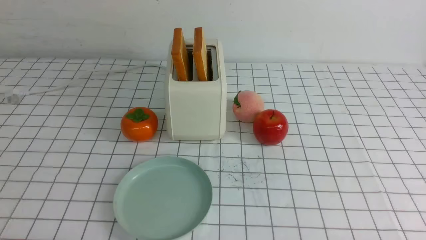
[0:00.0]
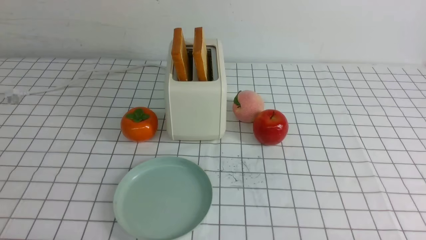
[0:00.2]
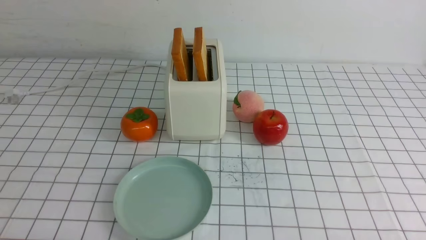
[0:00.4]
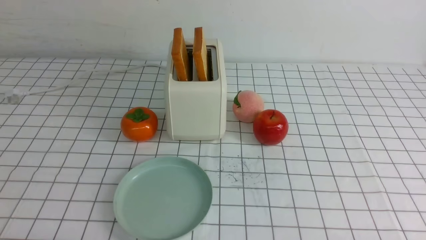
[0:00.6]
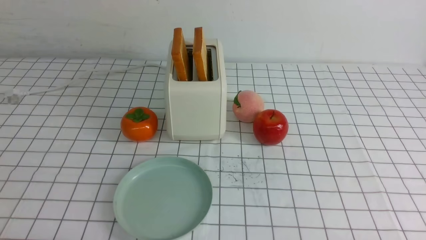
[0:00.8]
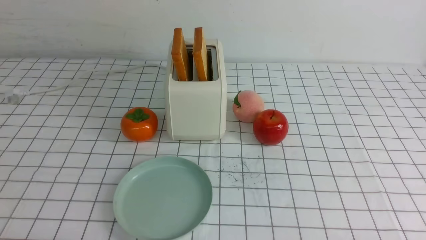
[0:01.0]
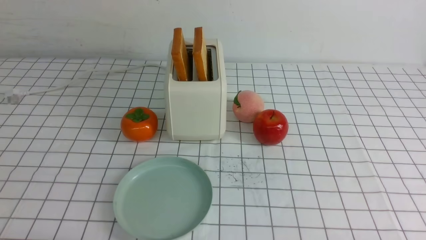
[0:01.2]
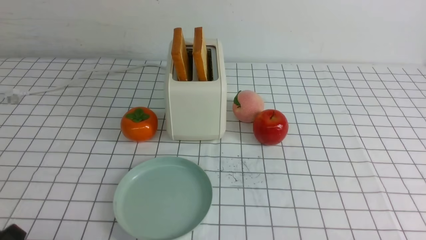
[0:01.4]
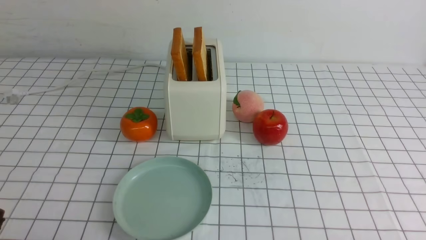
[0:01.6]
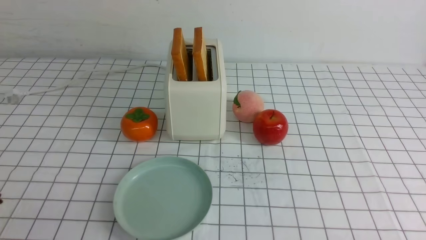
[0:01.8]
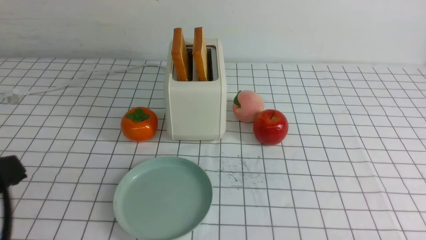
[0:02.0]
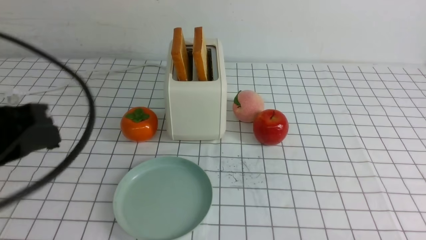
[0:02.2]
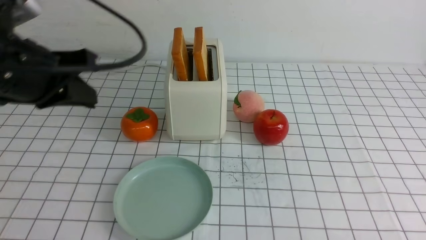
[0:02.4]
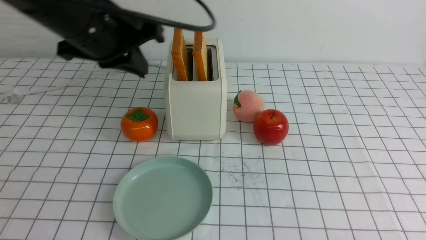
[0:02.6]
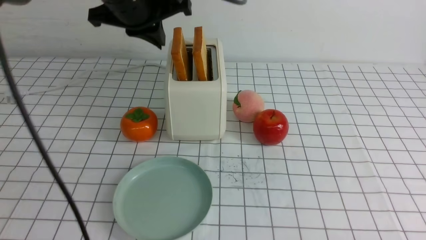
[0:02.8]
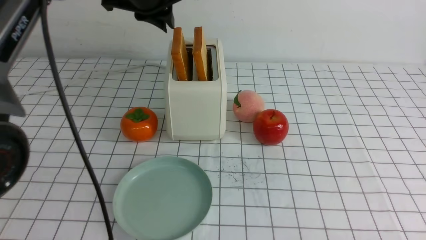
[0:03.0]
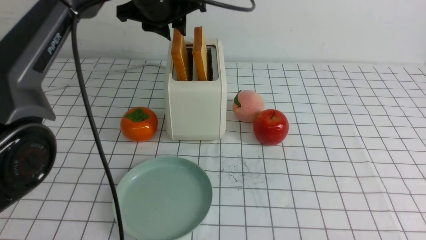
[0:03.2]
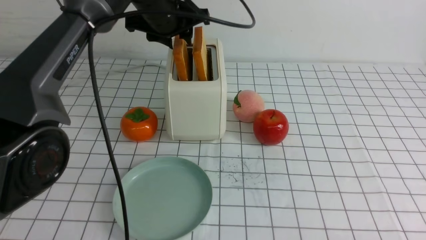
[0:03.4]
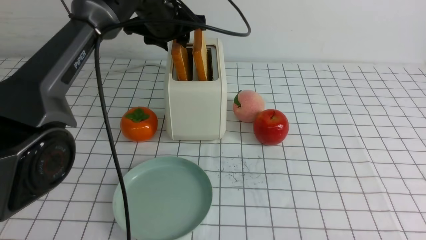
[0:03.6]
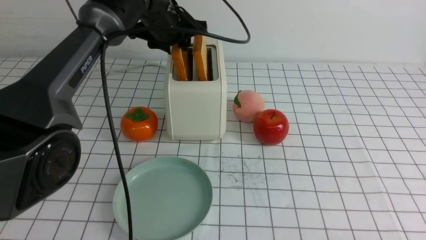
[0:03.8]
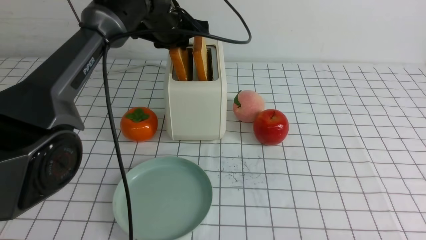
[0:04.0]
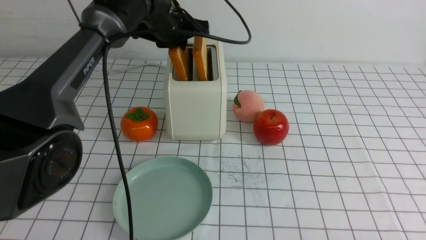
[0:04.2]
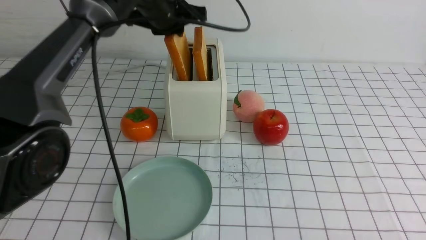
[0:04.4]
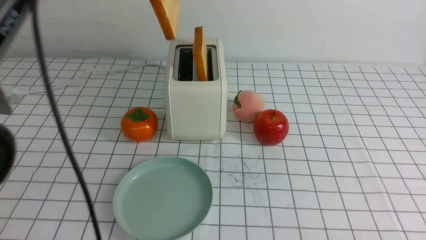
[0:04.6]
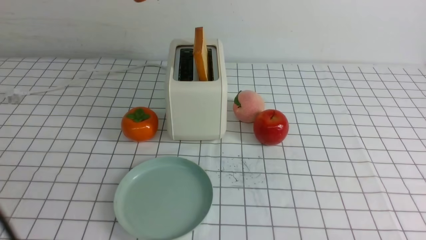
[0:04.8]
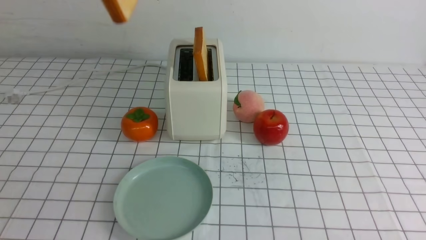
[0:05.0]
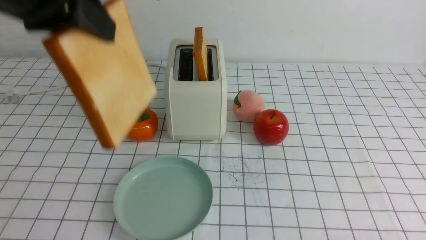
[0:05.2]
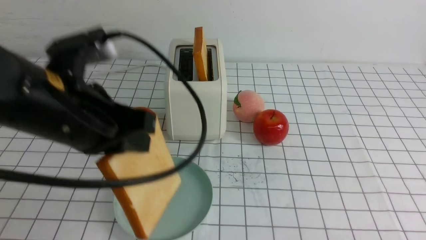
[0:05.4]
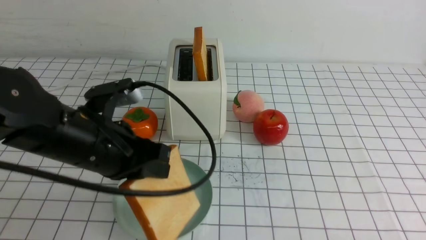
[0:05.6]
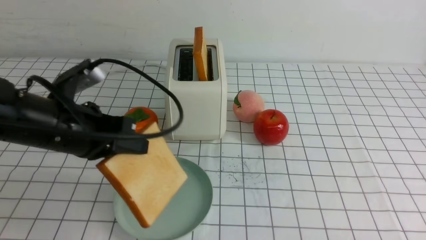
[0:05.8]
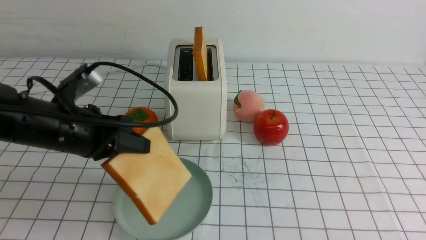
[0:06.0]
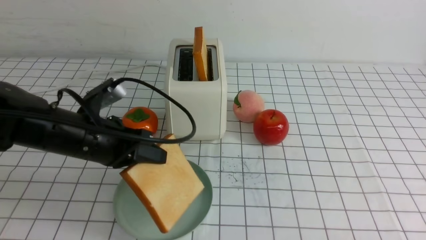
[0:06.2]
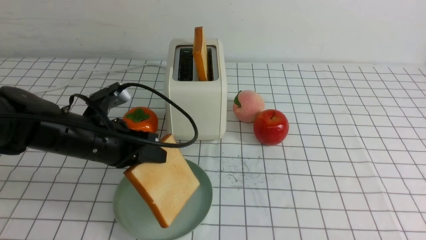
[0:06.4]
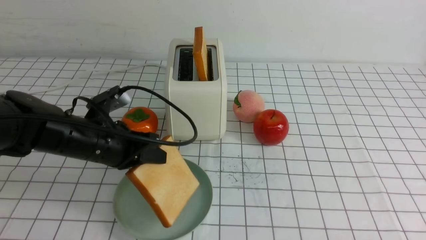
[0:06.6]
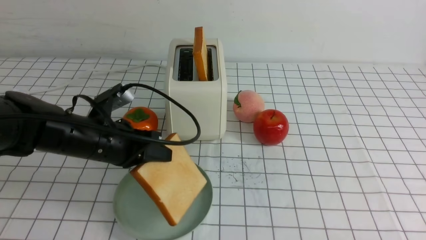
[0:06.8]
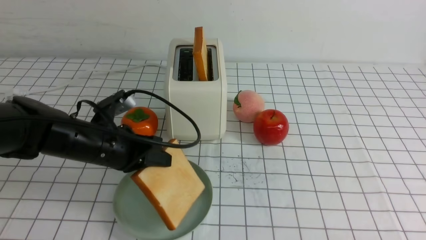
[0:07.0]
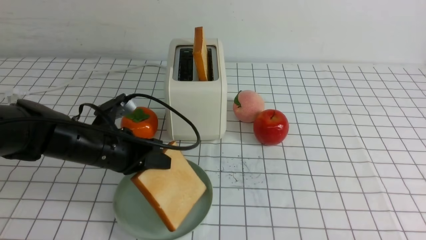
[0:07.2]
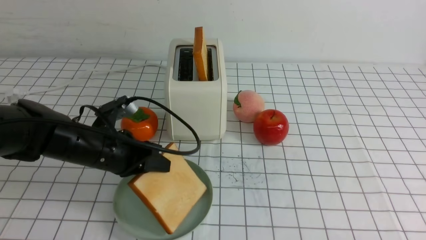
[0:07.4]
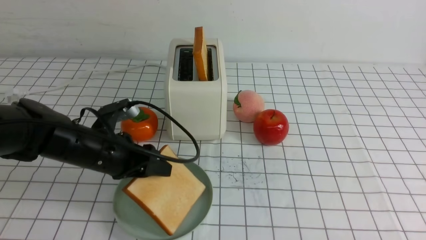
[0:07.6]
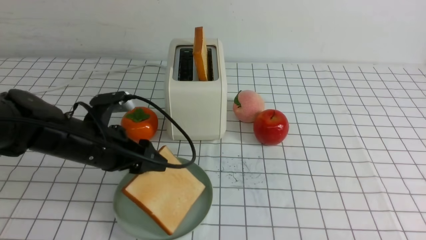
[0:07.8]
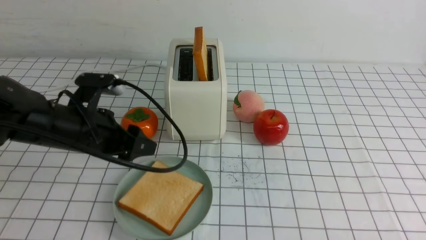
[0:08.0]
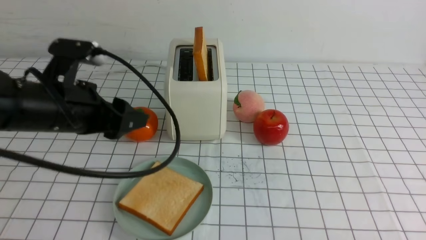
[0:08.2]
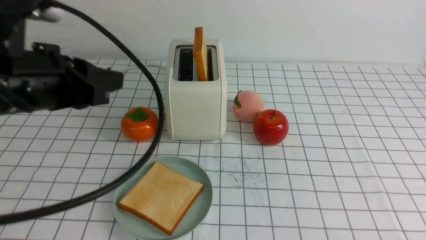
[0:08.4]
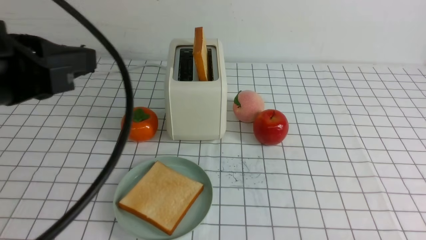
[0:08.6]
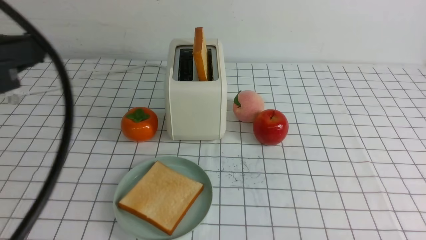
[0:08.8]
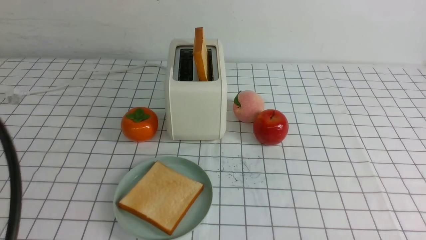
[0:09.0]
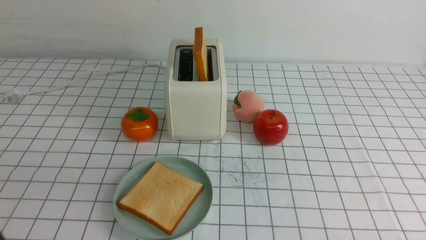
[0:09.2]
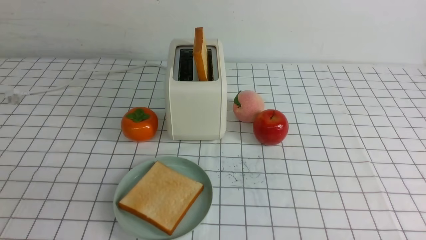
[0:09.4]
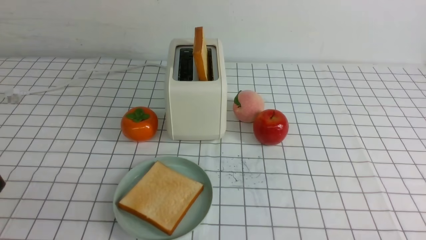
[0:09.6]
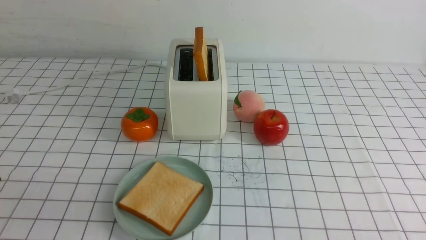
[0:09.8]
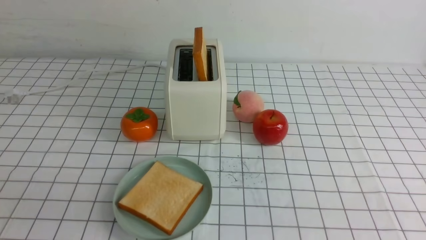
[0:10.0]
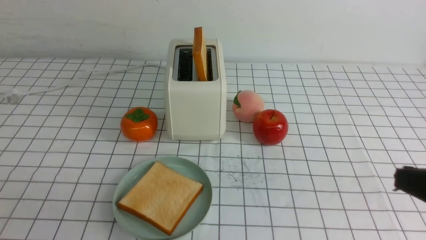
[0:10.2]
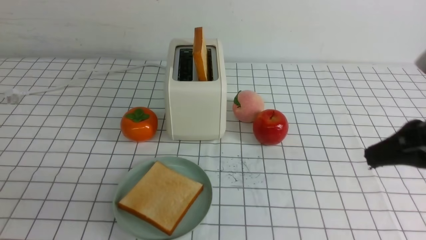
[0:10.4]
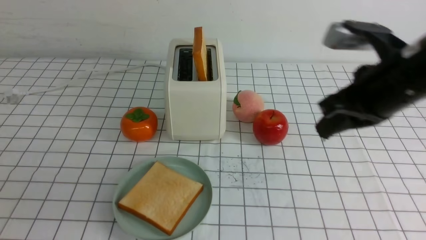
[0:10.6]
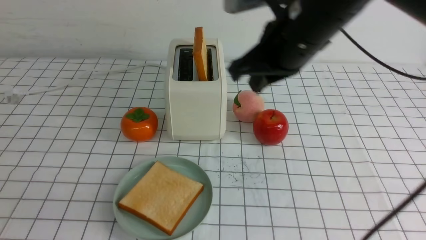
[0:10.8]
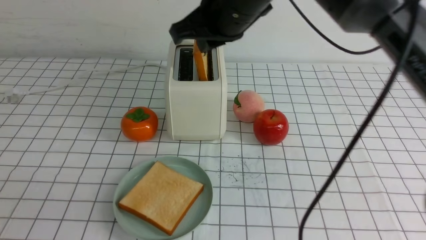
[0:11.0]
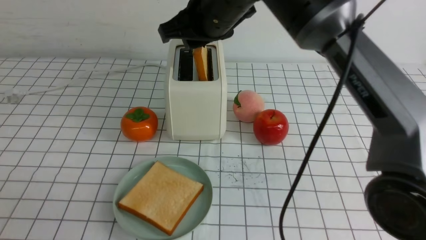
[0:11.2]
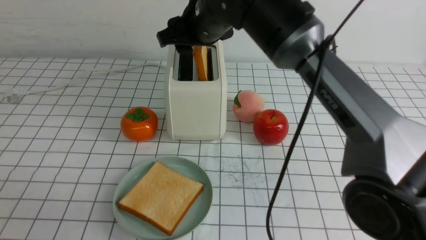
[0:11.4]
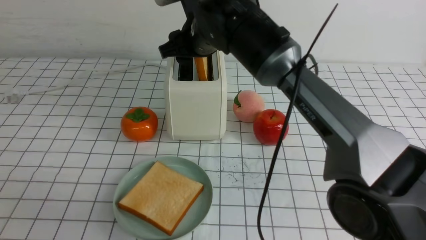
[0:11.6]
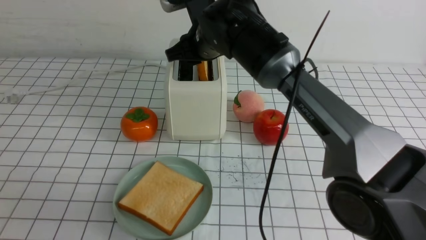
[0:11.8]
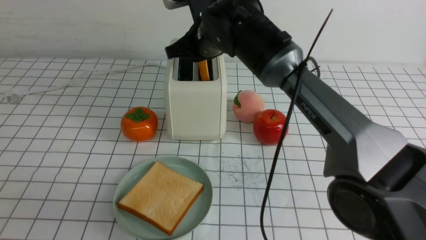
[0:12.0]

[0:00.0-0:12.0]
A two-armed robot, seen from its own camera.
Task of the whole recording: take toasted bread from bread machine on white checkered table place on plate.
Step, 0:00.0 to 0:04.4: use the left arm to take out a slice of bread.
Step, 0:04.6 to 0:08.0: use the left arm to put a slice of bread into the empty plate.
0:01.6 to 0:03.0: The left gripper moves forward, upward and to the right, about 40 cm, and closes up.
0:03.0 to 0:04.4: The left gripper is displaced forward and downward by approximately 10 cm, and opens and closes again.
0:04.4 to 0:06.0: The left gripper goes about 25 cm backward and to the left, and reaches some 20 cm upward, then returns.
0:06.0 to 0:07.6: The left gripper travels downward by roughly 10 cm, and opens its fingers.
0:07.6 to 0:09.0: The left gripper heads upward and backward, covering about 30 cm, and closes.
0:09.0 to 0:10.4: The right gripper travels upward and forward by roughly 20 cm, and closes. Meanwhile the left gripper goes approximately 15 cm downward and backward.
0:10.4 to 0:12.0: The right gripper travels forward and to the left by some 40 cm, and opens.

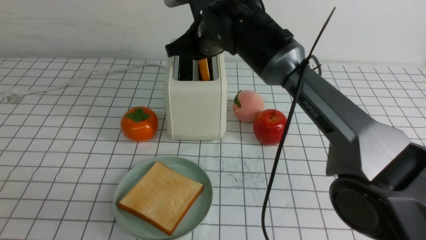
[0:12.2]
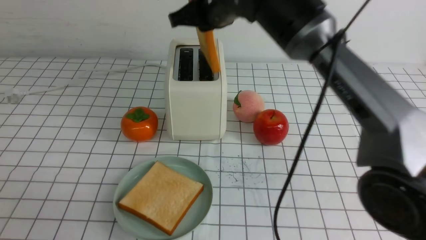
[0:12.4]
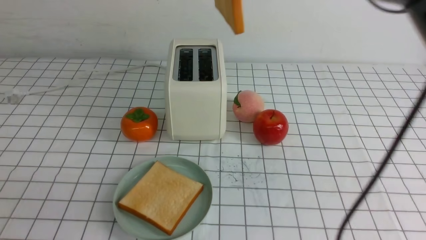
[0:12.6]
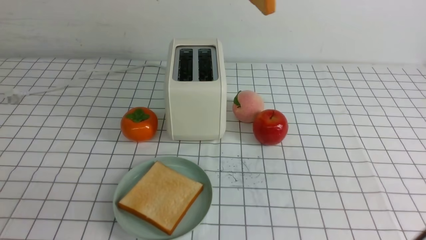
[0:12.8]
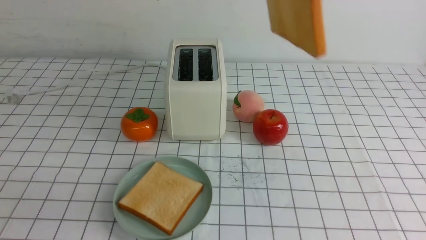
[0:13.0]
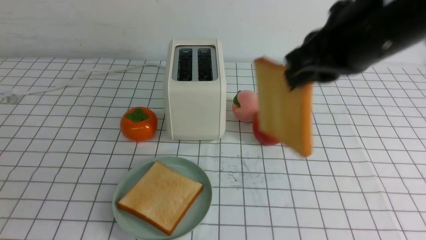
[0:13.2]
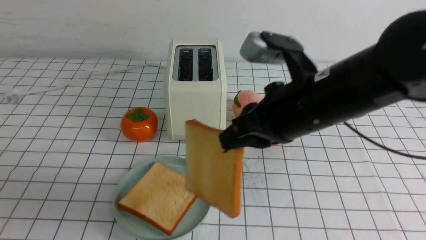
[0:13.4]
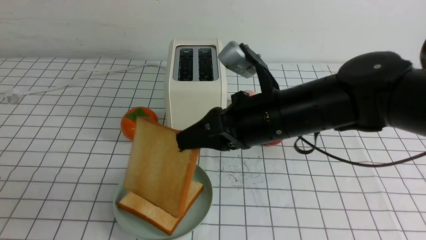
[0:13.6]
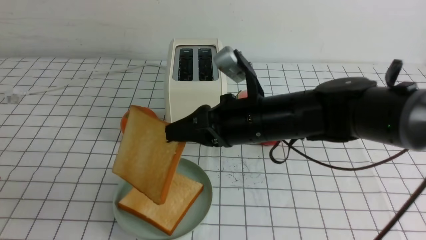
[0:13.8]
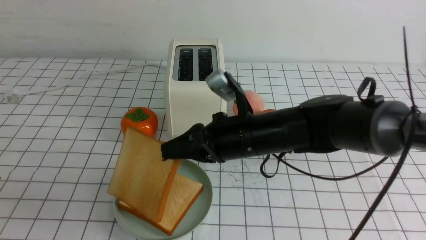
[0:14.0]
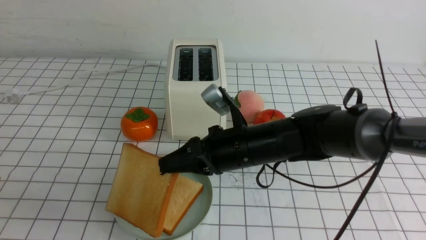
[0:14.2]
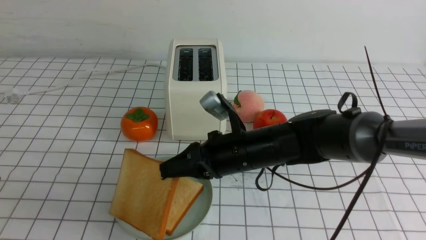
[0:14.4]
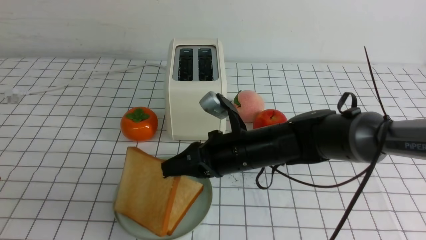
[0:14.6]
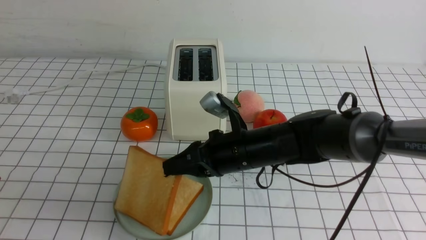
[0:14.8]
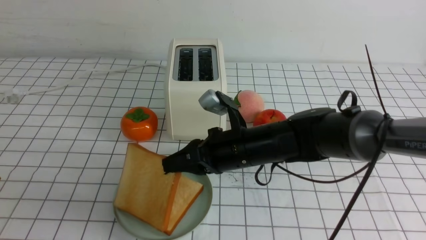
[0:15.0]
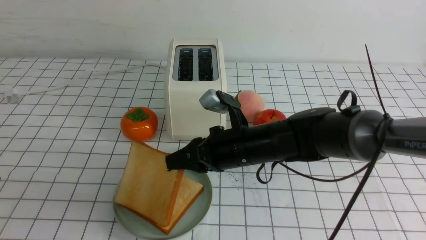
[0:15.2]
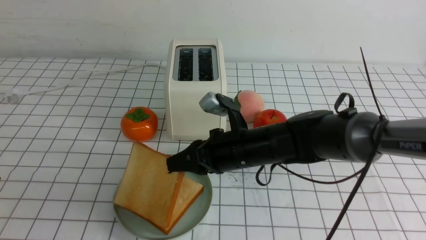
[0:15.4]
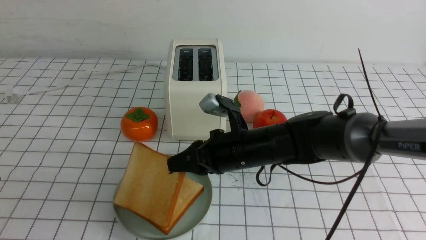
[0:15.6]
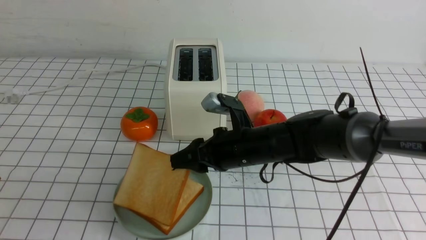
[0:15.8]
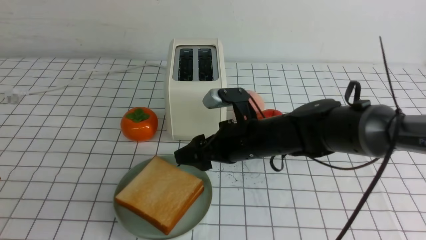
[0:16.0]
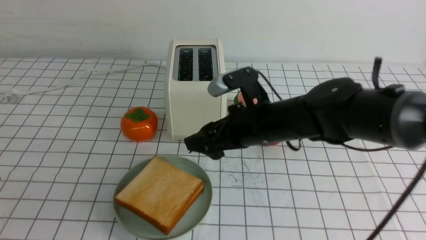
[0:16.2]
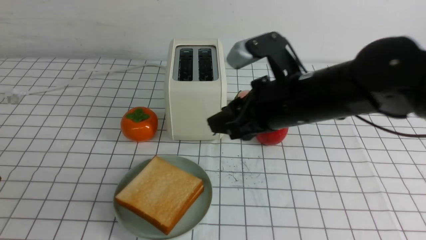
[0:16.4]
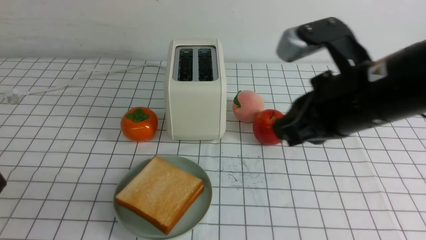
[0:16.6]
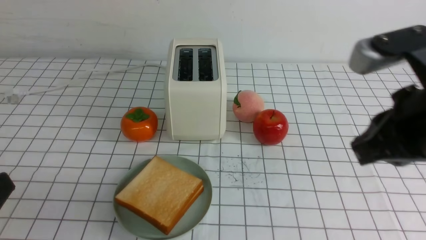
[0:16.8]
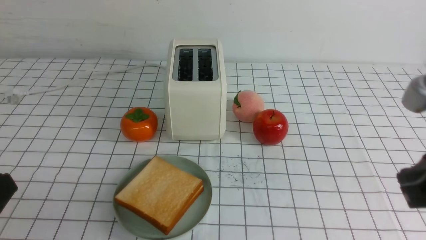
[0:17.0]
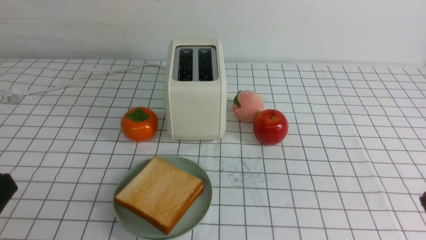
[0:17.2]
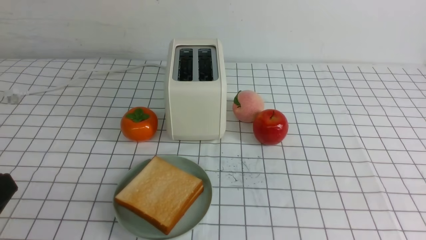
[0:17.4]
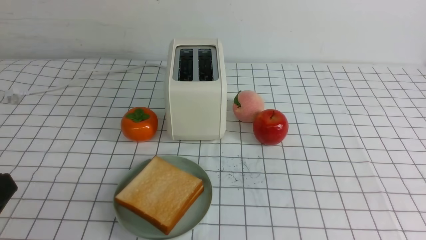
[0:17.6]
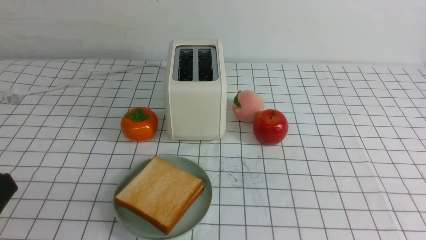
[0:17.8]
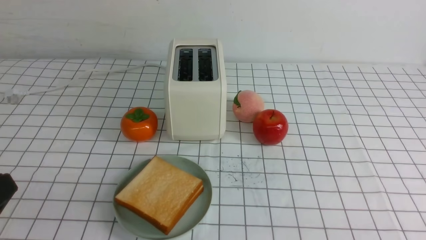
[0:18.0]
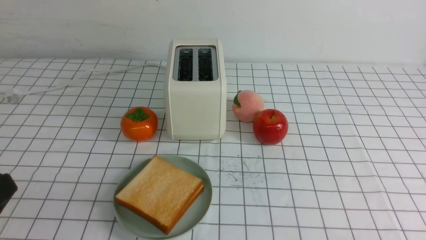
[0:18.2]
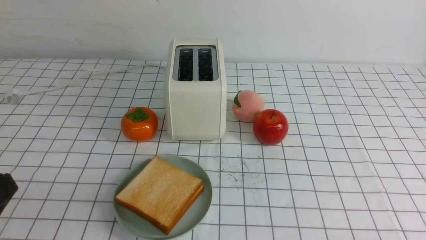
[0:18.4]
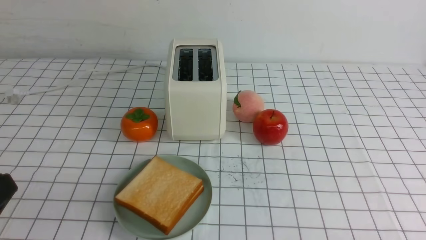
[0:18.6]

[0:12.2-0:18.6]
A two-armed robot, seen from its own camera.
Task of the whole recording: take toasted bread from bread machine on white checkered table place on plate.
Step, 0:12.6 to 0:16.4: use the right arm to put a slice of bread into the plate.
0:12.2 to 0:13.8: The right gripper is displaced backward and to the right by roughly 15 cm, and reaches approximately 20 cm upward, then returns.
0:13.8 to 0:15.4: The right gripper travels downward by approximately 10 cm.
0:15.4 to 0:17.0: The right gripper heads upward, to the right and backward, covering about 25 cm, and opens, then closes once more.
0:17.0 to 0:18.6: The right gripper moves downward, backward and to the right, roughly 25 cm.
